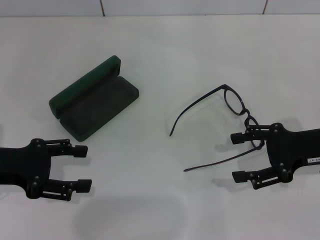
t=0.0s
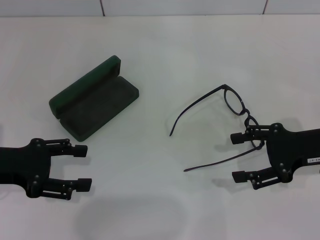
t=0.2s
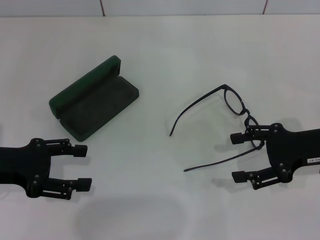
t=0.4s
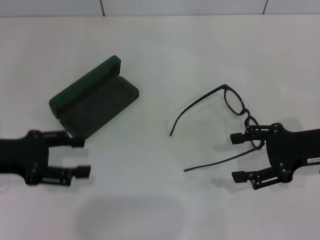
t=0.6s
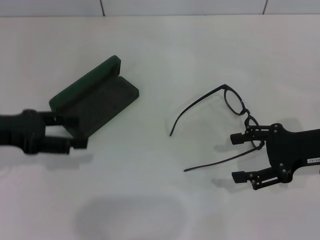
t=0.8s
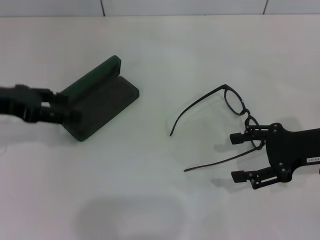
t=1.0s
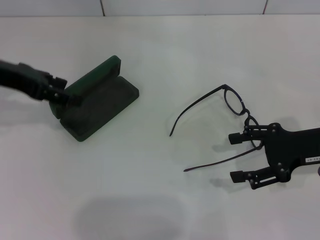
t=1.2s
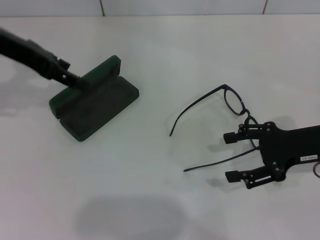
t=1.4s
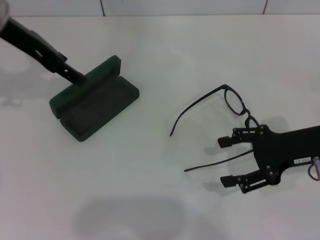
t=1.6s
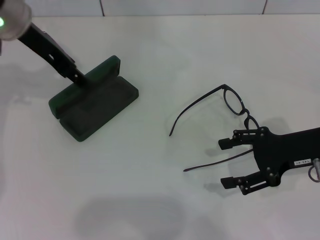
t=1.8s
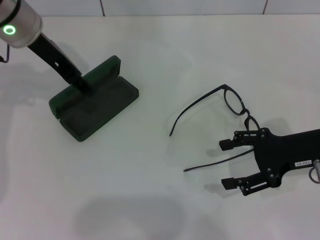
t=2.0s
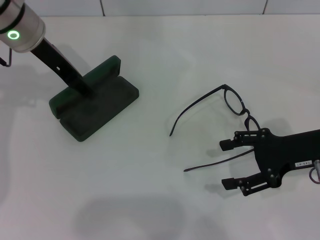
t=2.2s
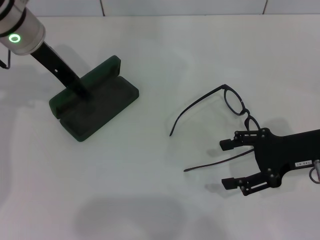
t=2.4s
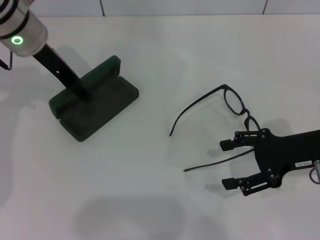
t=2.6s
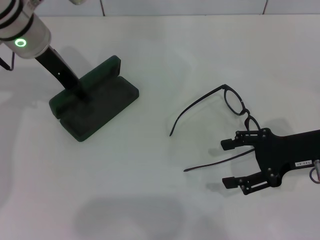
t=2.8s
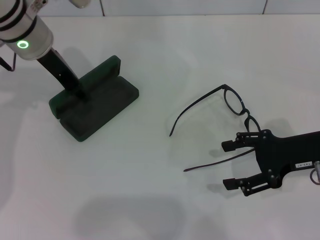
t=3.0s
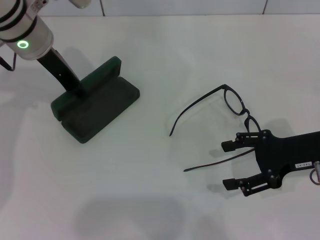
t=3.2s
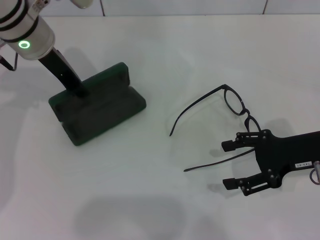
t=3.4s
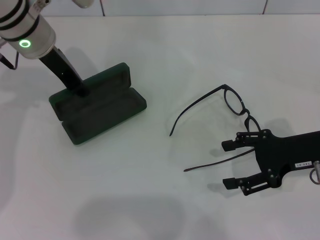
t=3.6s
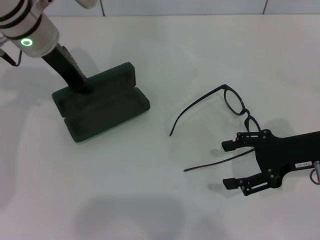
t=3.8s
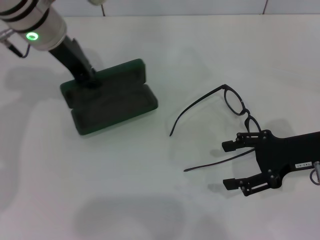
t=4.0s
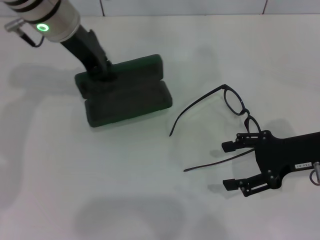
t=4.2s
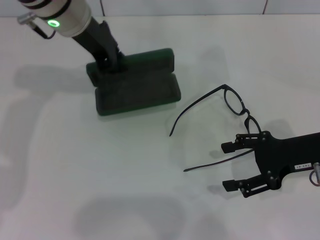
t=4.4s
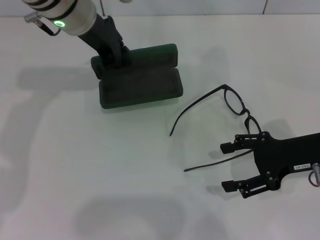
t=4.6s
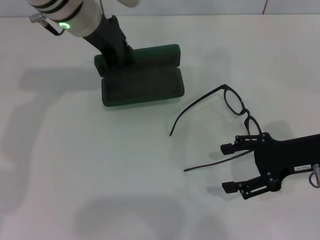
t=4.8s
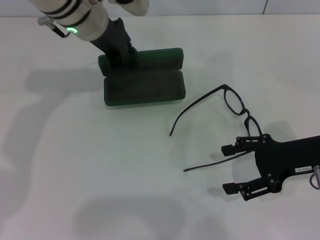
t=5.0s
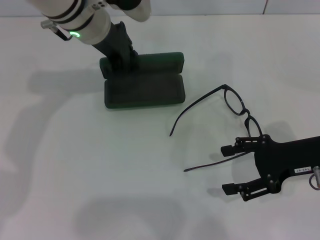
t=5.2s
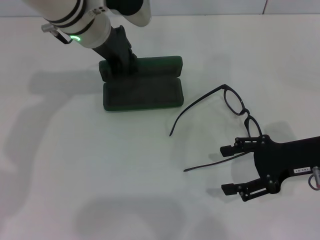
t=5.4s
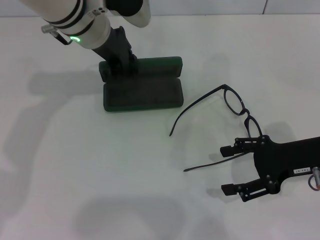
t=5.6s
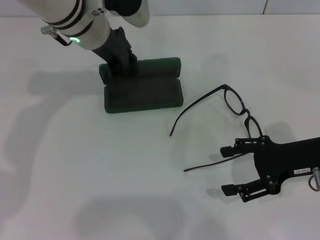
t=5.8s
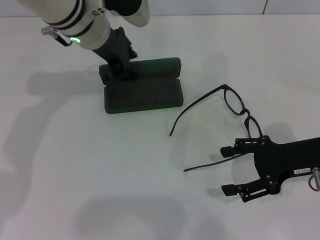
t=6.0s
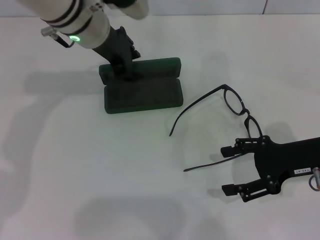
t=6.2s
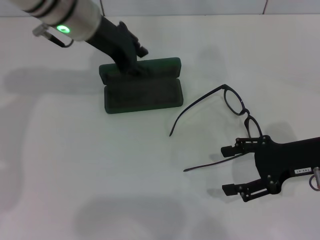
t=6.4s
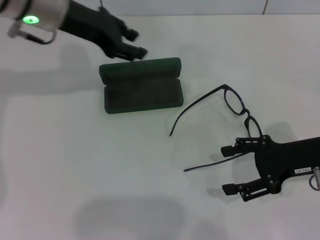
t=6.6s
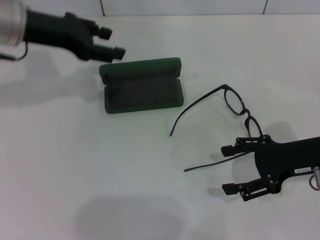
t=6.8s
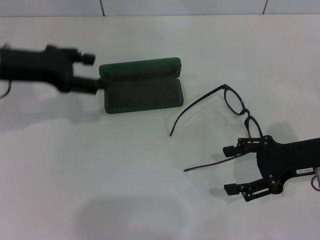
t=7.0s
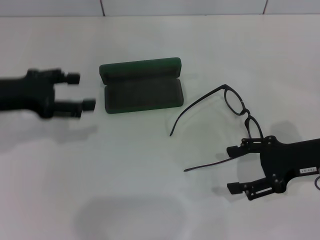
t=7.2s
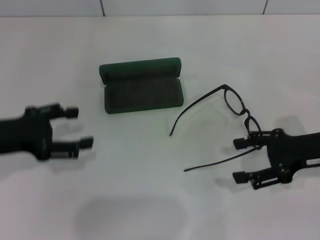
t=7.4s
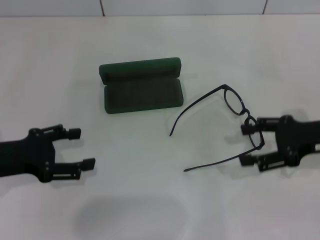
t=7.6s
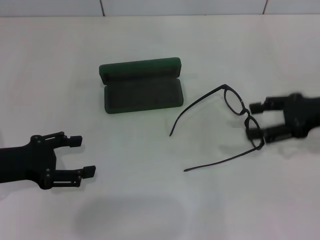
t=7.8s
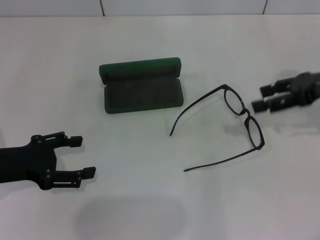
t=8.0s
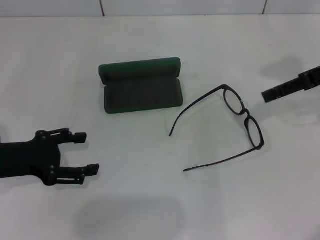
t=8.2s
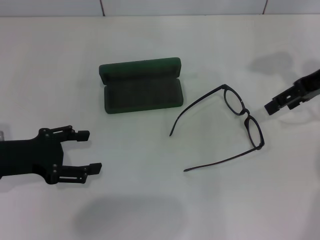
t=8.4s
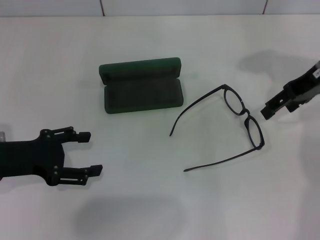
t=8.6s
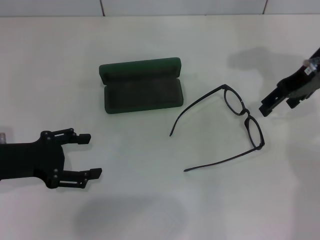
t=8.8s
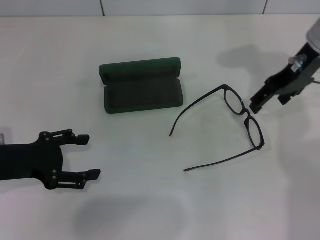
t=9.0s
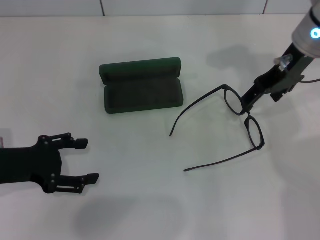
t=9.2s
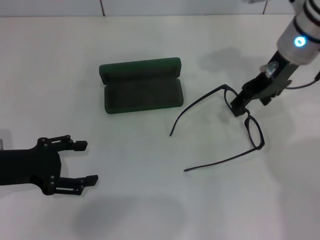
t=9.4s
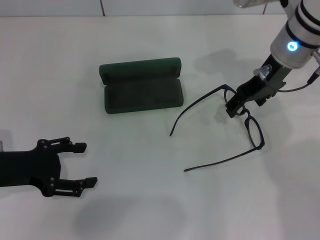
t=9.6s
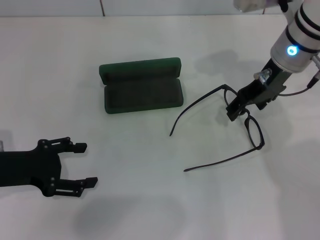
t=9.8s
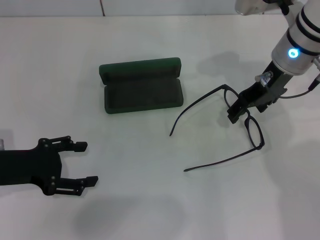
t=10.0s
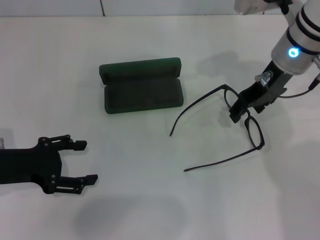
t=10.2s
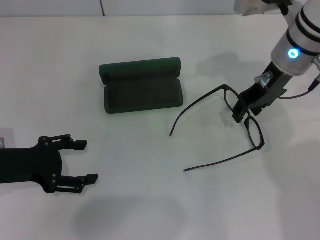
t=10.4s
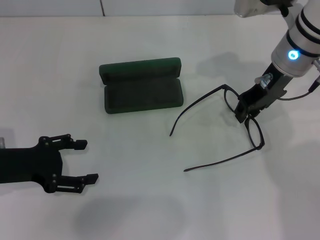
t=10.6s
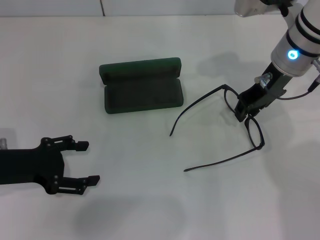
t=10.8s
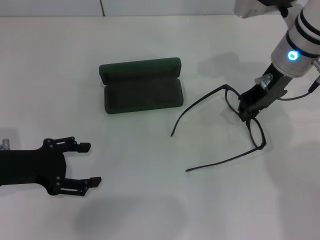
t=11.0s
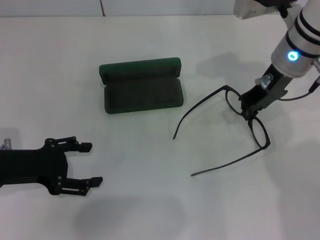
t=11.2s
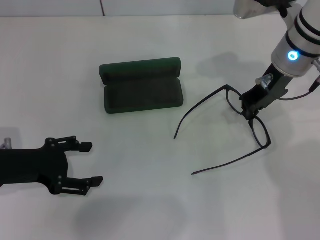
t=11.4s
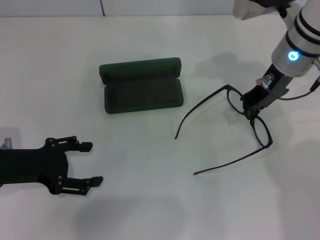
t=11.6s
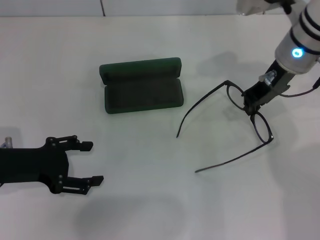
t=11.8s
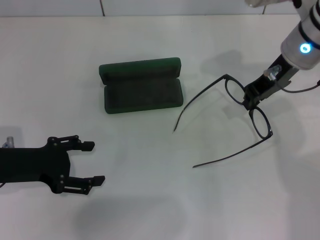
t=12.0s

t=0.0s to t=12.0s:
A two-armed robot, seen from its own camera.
Step, t=0.0s to t=3.6s: Grab the glasses case with your left hand.
Step, t=3.8s to t=6.2s: Place the glasses case in the center of the table with your left hand.
Step, t=6.6s to t=11.2s: Grab the eyeglass frame with your right hand.
t=0.0s to t=1.6s: The left gripper is displaced forward, upward and to the right by about 20 cm.
t=1.6s to t=3.0s: The left gripper shifts by approximately 5 cm.
t=3.0s to t=4.4s: The left gripper heads to the right, covering some 5 cm, and closes up.
t=4.4s to t=6.0s: There are only small adjustments of the grippers.
t=6.0s to t=7.6s: The left gripper is displaced backward, to the left and downward by roughly 25 cm, and opens.
t=7.6s to t=9.0s: The right gripper goes approximately 15 cm forward, upward and to the left.
t=9.0s to t=10.4s: The right gripper ends up some 5 cm from where it was.
t=10.4s to t=12.0s: The right gripper closes up.

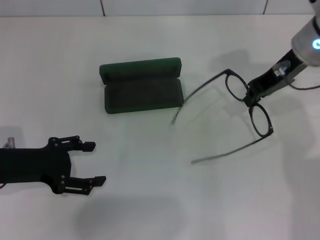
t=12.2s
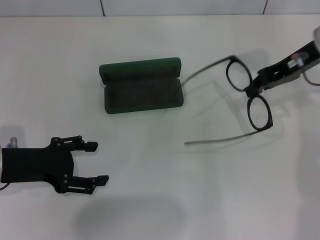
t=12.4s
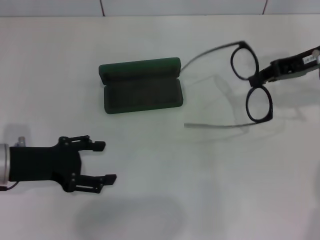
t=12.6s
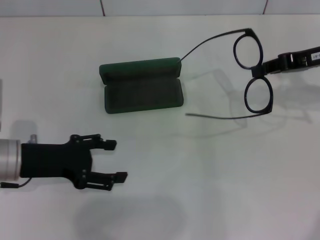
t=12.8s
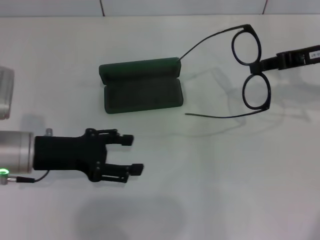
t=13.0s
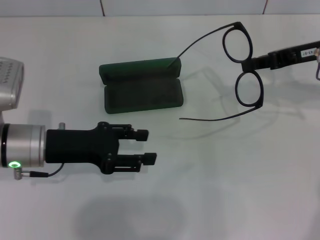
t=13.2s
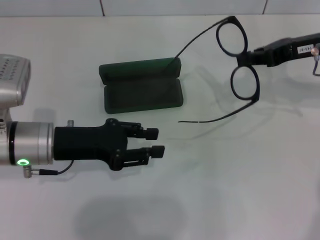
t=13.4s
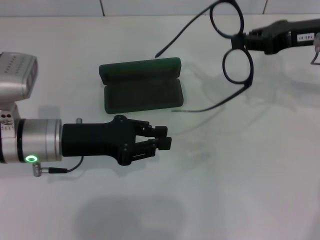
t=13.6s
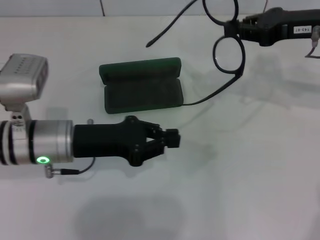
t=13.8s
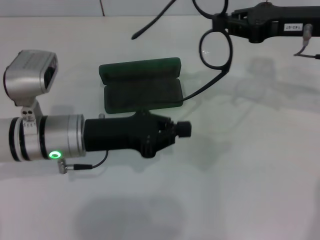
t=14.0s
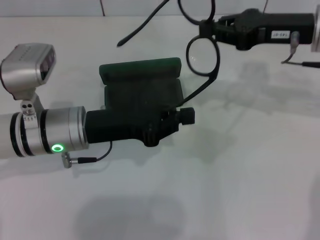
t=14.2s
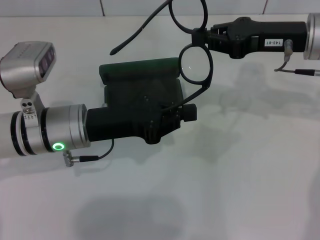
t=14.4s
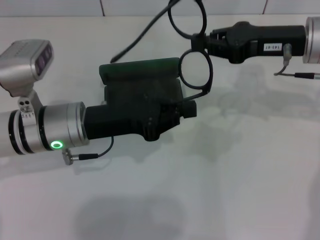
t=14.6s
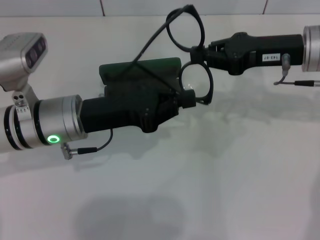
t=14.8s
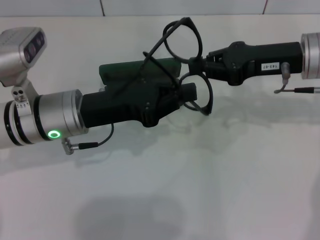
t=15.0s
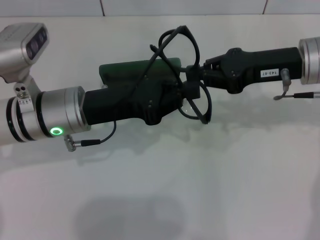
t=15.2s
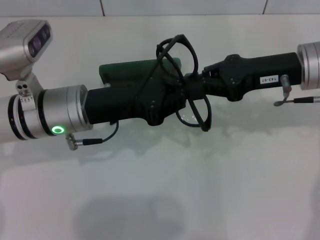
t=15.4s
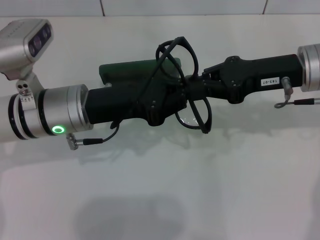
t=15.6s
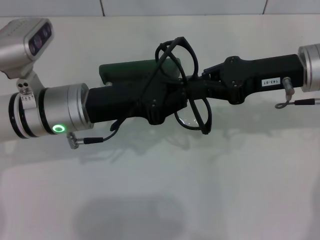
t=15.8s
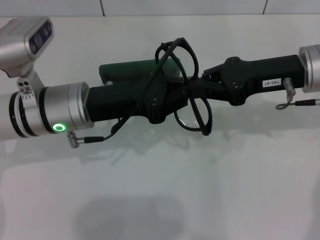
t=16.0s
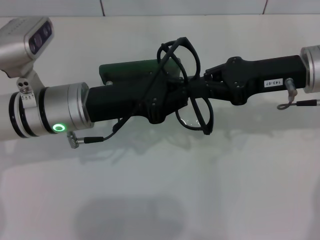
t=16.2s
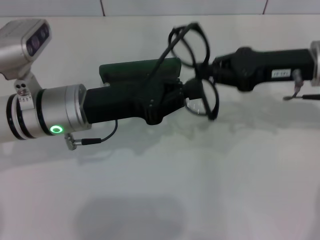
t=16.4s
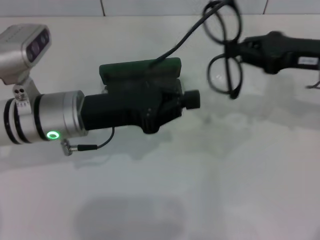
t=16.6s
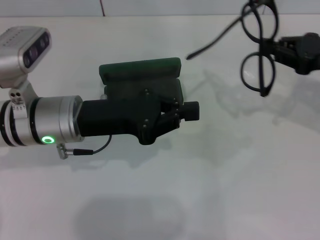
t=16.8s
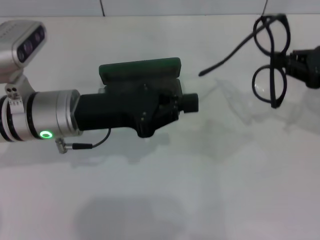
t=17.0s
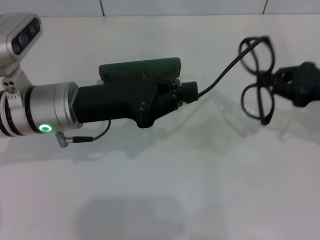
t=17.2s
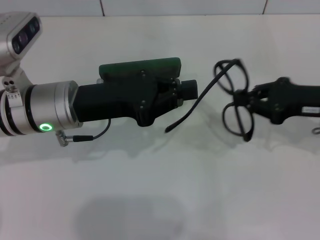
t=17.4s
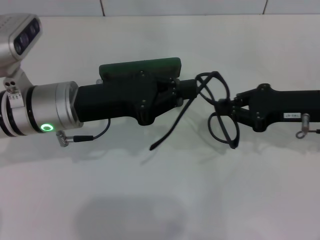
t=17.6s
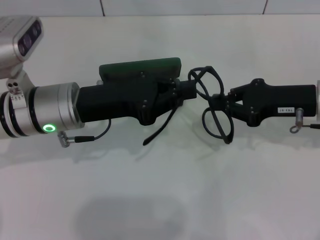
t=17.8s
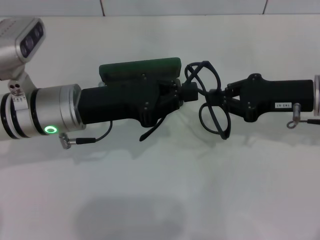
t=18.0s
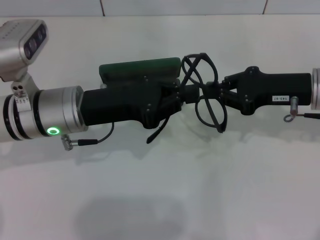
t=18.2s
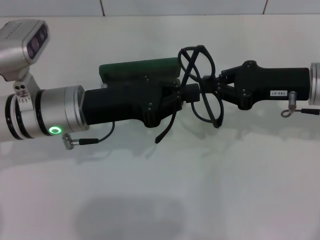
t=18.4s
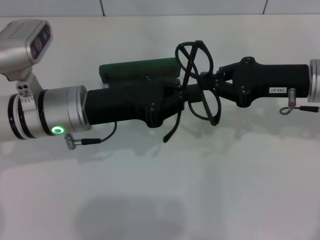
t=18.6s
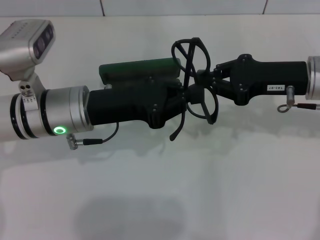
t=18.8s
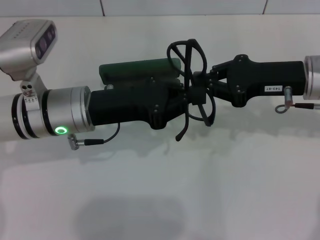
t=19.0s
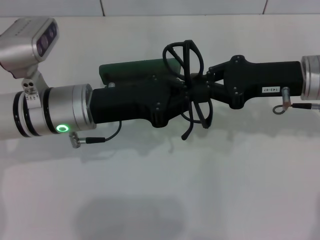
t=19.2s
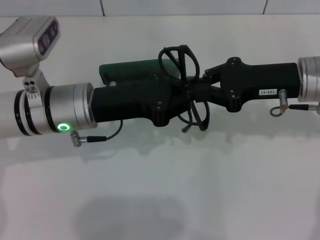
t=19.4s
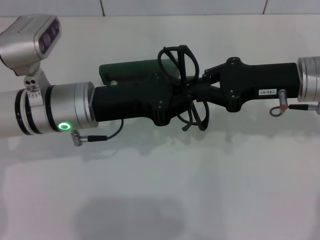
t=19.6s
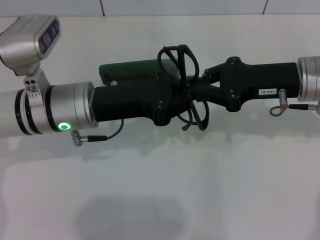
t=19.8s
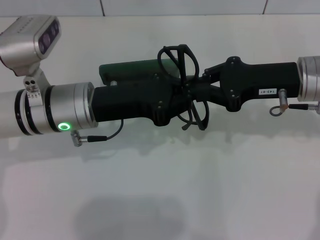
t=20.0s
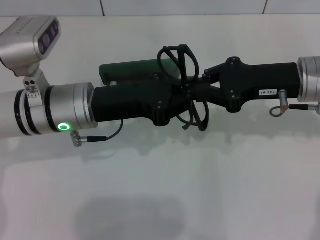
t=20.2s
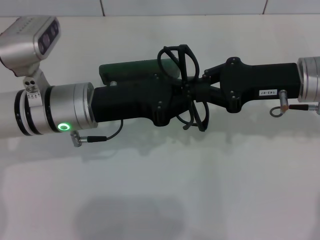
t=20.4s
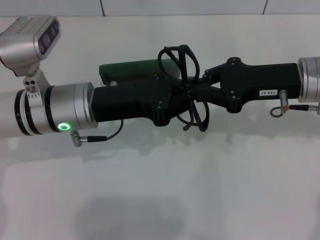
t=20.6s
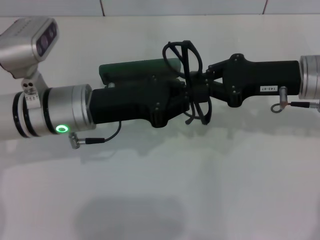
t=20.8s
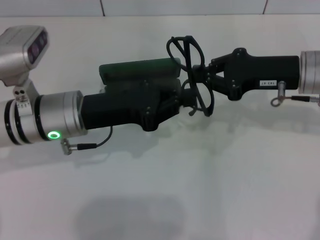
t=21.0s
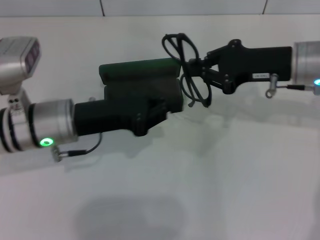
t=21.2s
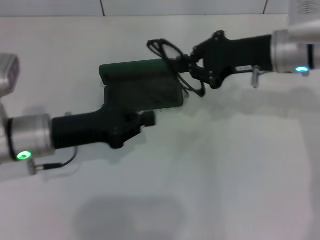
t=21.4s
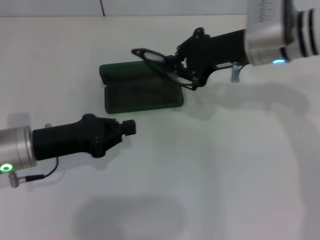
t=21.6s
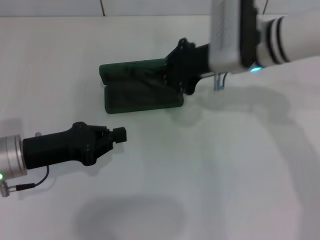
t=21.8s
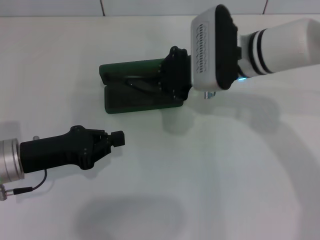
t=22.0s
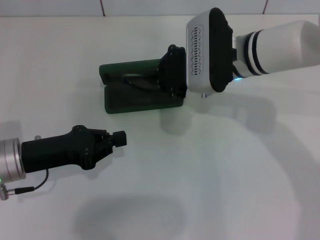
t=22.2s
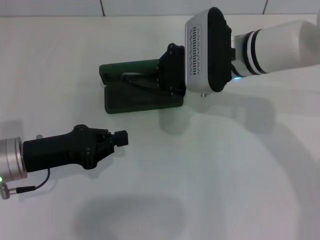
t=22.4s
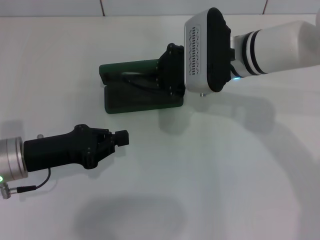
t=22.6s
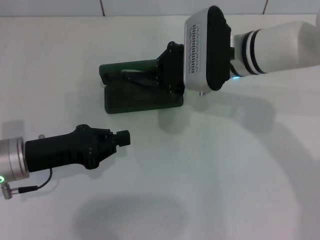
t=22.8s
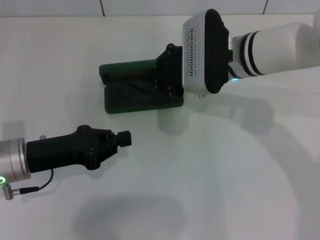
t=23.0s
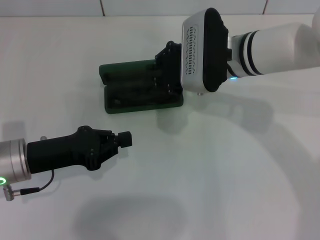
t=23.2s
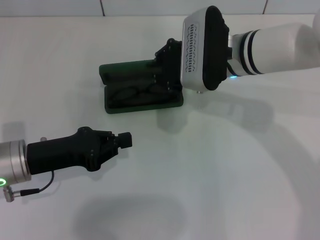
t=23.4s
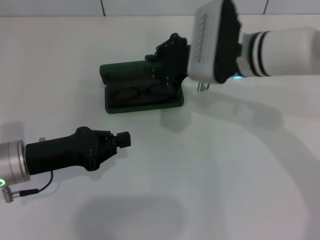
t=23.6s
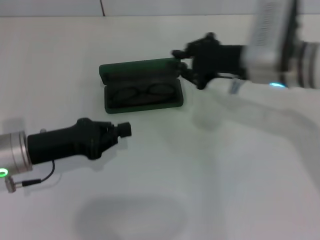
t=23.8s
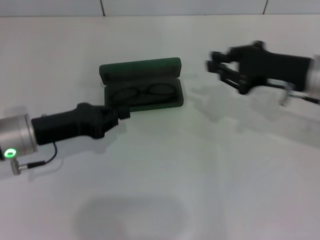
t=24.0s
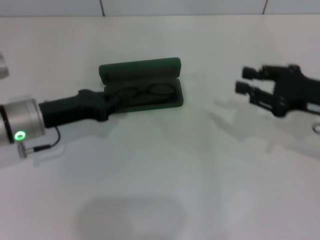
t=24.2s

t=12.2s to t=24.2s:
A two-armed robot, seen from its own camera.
Step, t=12.2s to t=19.6s: Fold the frame with your left hand.
Step, t=19.8s to t=23.4s: Put the glasses into the case with your right hand.
t=12.2s to t=13.8s: The right gripper heads to the right, covering some 5 cm. Meanwhile the left gripper shifts about 10 cm to the right, and closes its fingers.
t=13.8s to t=15.2s: The right gripper changes place by approximately 5 cm.
t=15.2s to t=16.6s: The right gripper heads to the right, covering about 5 cm.
t=16.6s to t=18.2s: The right gripper moves roughly 5 cm to the right and comes back.
t=18.2s to t=19.8s: The grippers move only a little.
t=21.2s to t=22.6s: The right gripper heads to the left, covering about 10 cm. The left gripper moves to the left, approximately 5 cm.
t=22.6s to t=24.2s: The right gripper heads to the right and backward, covering roughly 20 cm; the left gripper shifts some 5 cm forward.
